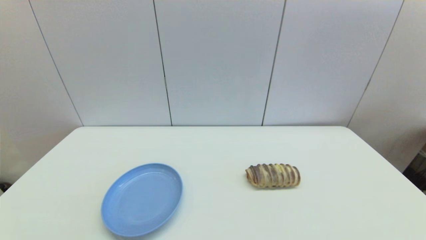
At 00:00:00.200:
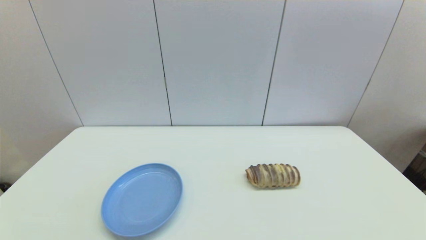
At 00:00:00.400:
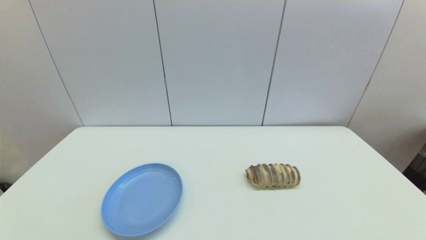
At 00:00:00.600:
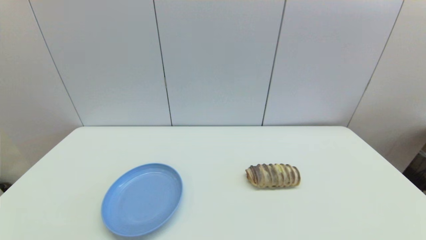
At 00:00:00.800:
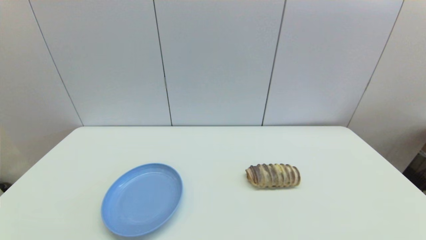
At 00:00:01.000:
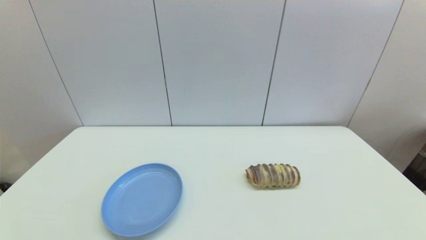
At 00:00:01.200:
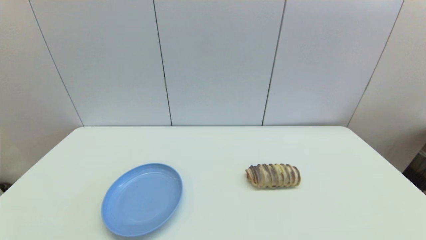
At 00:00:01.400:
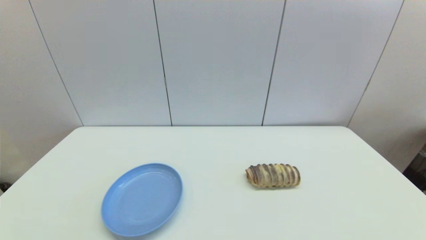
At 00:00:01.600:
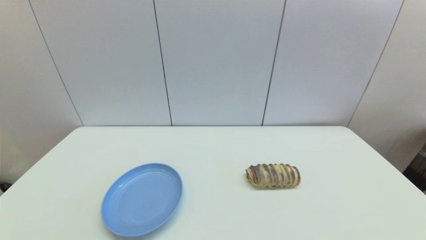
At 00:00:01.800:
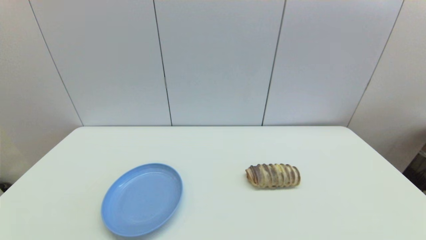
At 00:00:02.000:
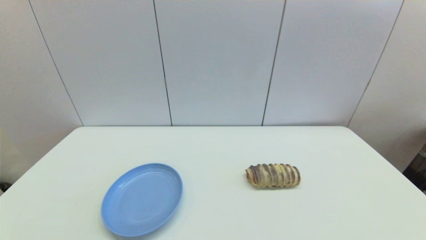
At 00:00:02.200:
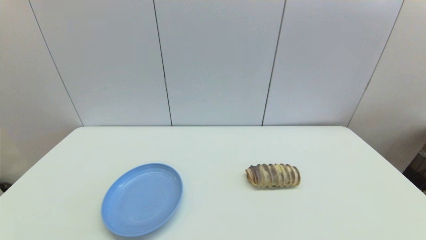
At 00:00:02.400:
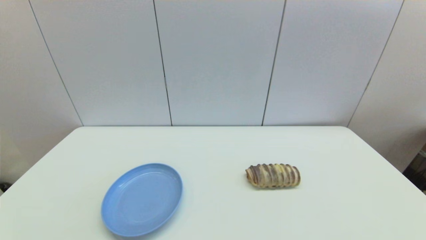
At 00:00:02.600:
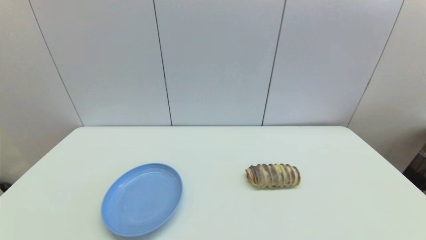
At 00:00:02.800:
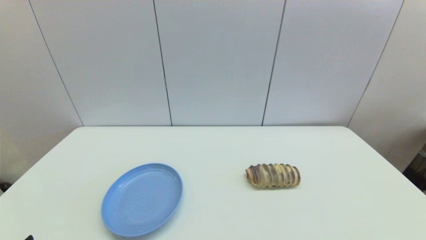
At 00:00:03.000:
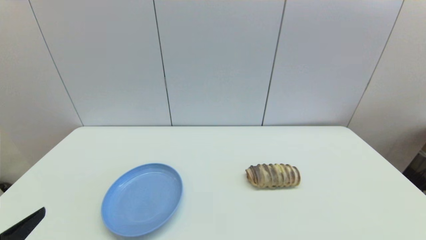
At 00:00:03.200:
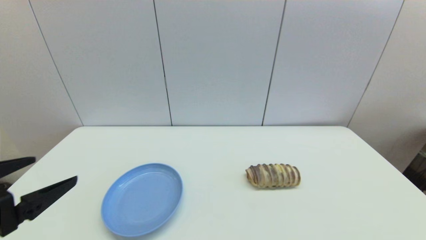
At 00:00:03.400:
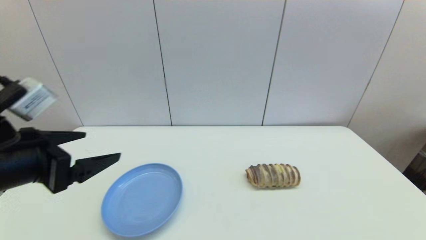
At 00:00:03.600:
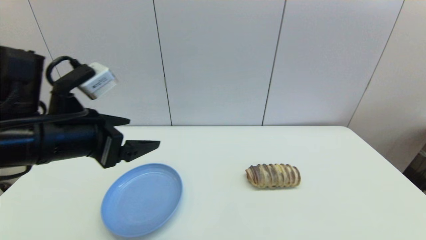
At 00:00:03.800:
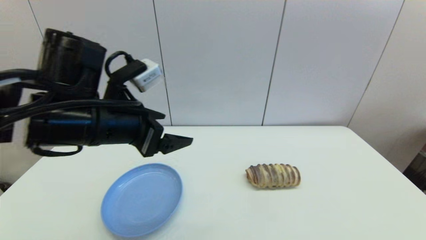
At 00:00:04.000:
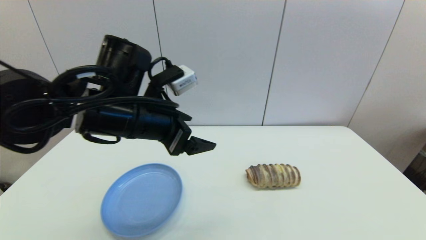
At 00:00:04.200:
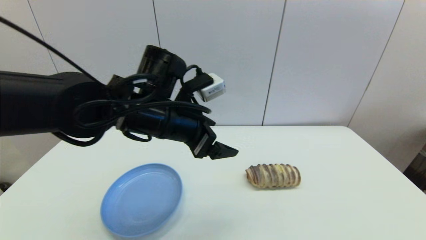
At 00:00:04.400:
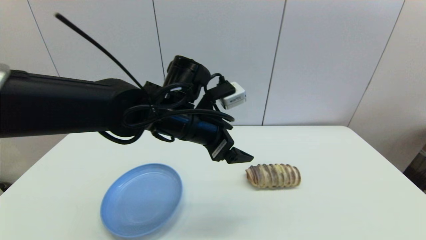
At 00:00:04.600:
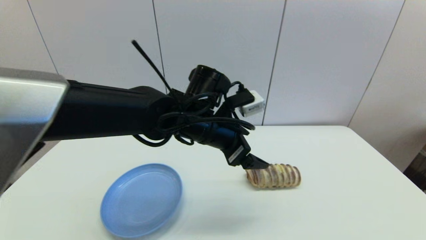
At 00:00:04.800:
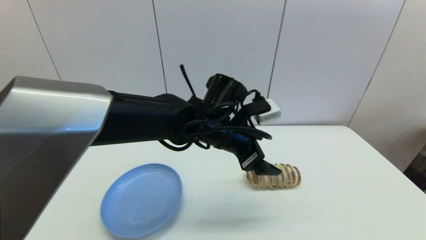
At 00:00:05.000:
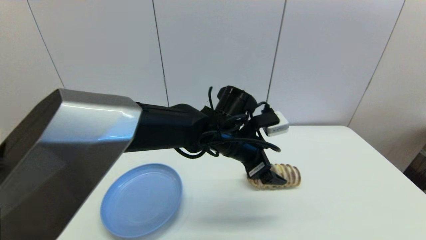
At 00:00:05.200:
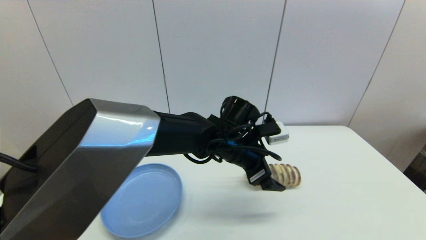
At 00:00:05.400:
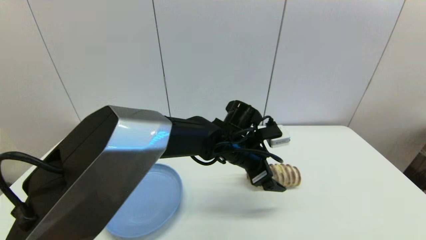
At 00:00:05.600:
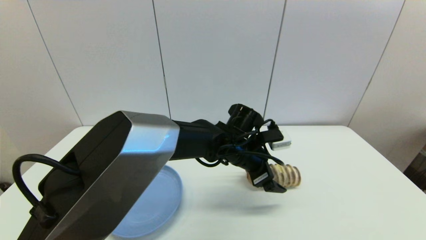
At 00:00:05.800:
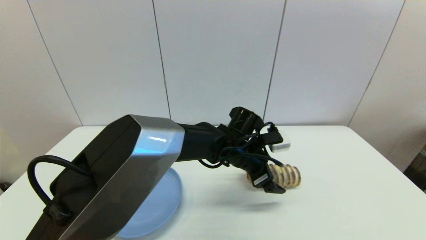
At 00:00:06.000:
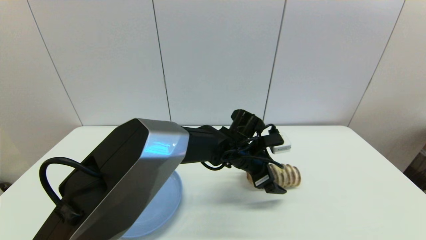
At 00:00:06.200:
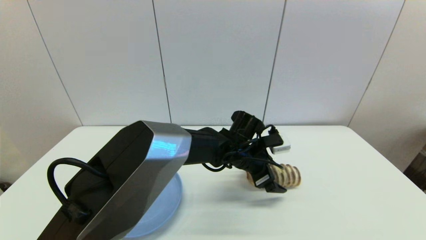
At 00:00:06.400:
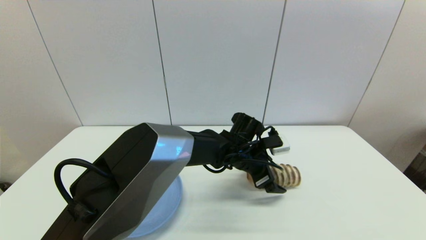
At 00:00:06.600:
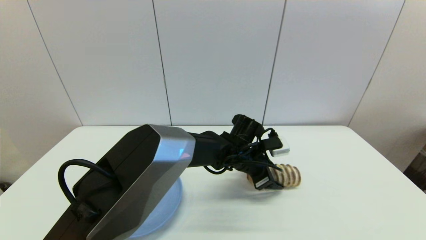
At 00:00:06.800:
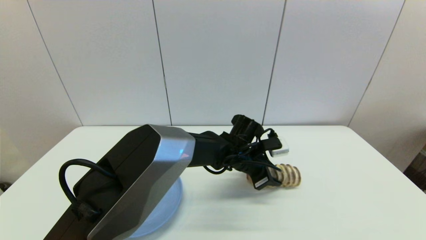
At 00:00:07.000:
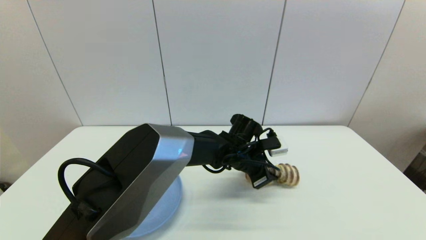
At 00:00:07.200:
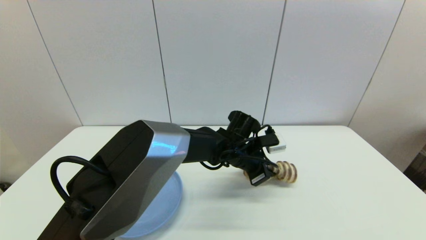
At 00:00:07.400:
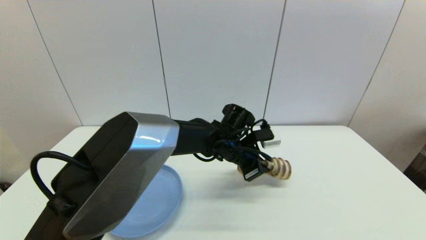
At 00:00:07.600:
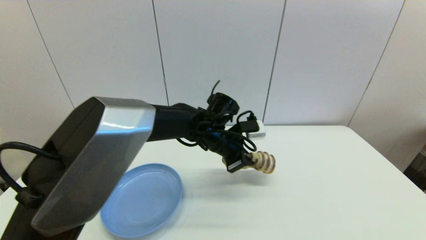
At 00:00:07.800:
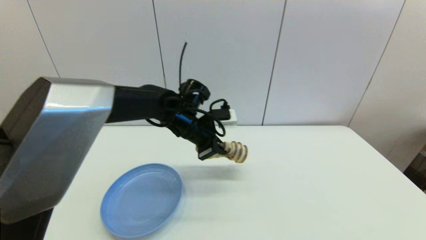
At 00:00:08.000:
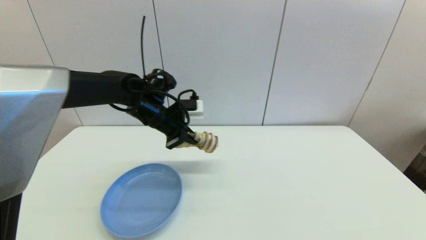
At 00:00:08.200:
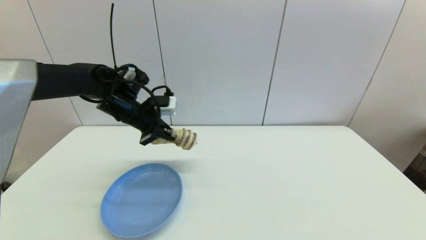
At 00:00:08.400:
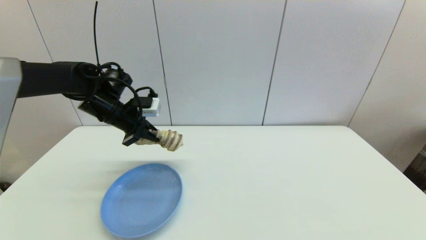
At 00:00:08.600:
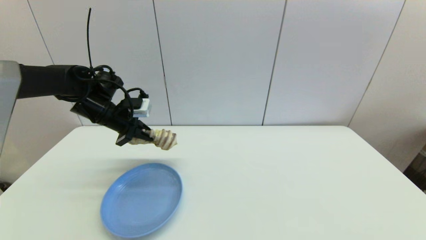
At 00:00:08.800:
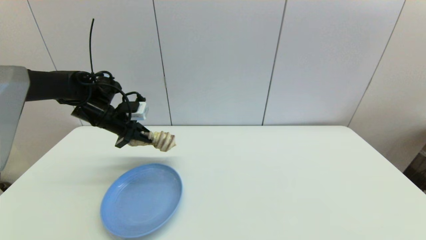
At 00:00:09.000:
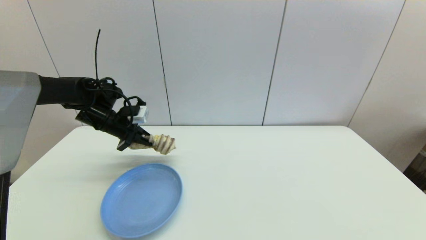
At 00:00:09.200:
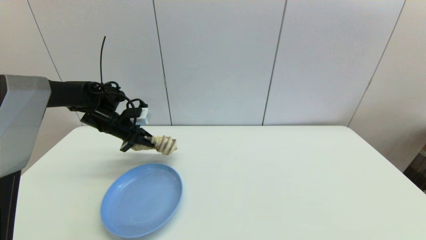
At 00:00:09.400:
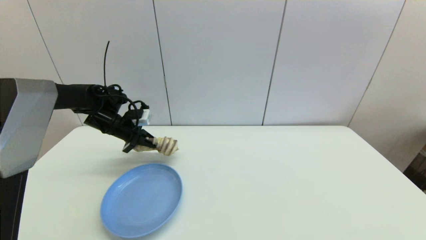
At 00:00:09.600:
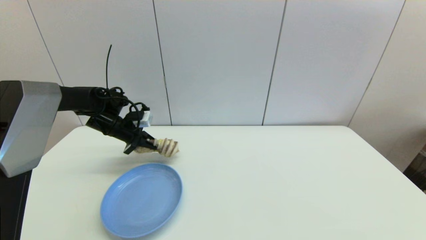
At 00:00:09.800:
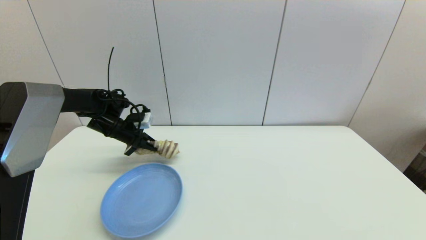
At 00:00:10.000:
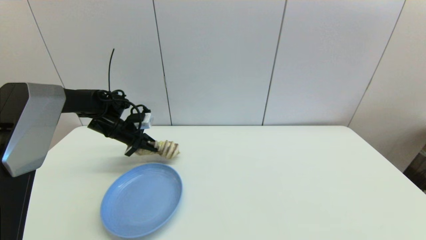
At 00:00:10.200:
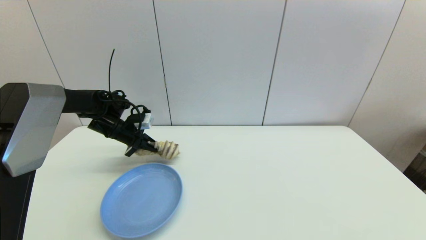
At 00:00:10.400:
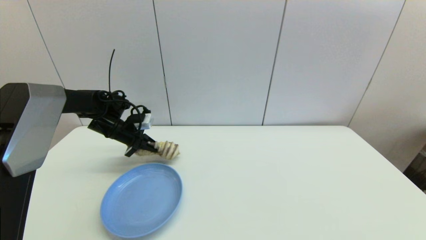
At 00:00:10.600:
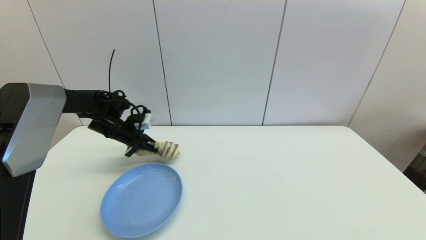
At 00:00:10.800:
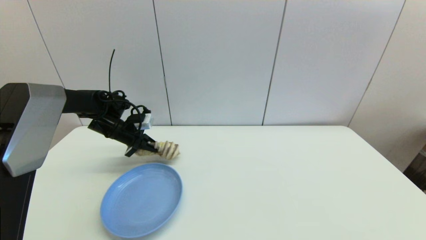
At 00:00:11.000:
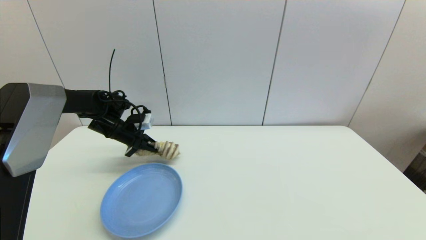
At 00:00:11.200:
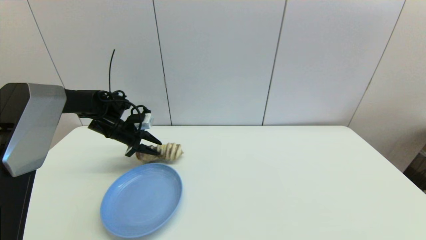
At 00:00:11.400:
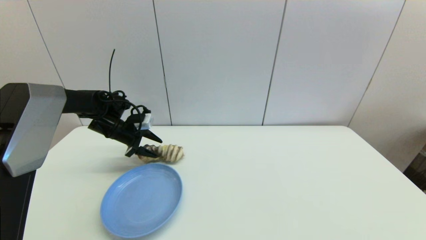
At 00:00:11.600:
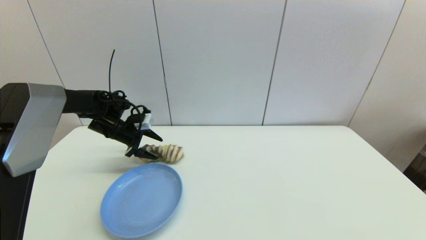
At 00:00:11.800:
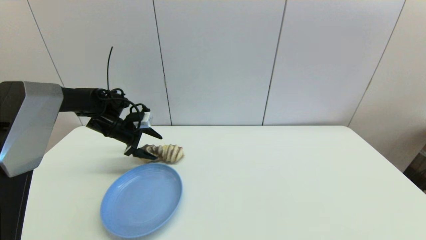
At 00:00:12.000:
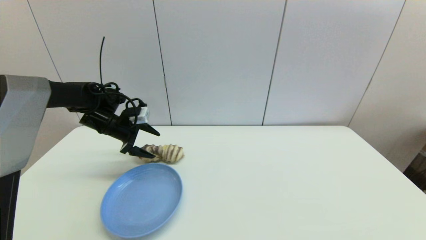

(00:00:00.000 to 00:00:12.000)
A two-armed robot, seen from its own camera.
Step, 00:00:02.800 - 00:00:07.000: Grasp the long bread with left gripper.
Step, 00:00:07.200 - 00:00:11.600: Place the long bread on the table with left gripper.
00:00:00.000 - 00:00:01.600: Both grippers stay about where they are.
00:00:01.600 - 00:00:03.000: The left gripper shifts approximately 15 cm upward and forward.
00:00:03.000 - 00:00:04.400: The left gripper goes roughly 35 cm to the right and forward.
00:00:04.400 - 00:00:06.000: The left gripper travels downward, to the right and forward by approximately 15 cm.
00:00:06.000 - 00:00:07.600: The left gripper moves to the left, roughly 5 cm, and closes.
00:00:07.600 - 00:00:09.000: The left gripper travels to the left by roughly 30 cm.
00:00:09.000 - 00:00:10.400: The grippers stay close to where they were, moving slightly.
00:00:10.400 - 00:00:12.000: The left gripper opens its fingers.

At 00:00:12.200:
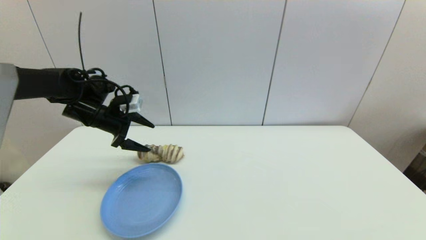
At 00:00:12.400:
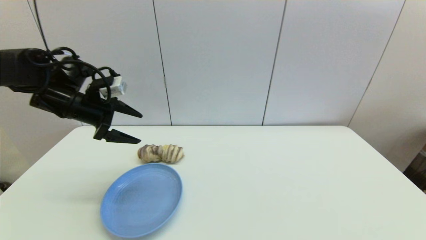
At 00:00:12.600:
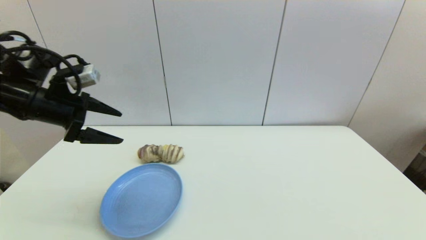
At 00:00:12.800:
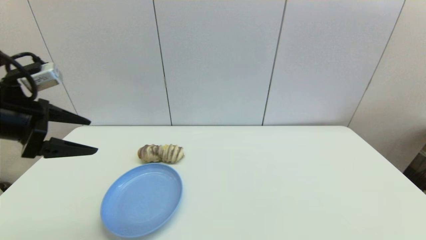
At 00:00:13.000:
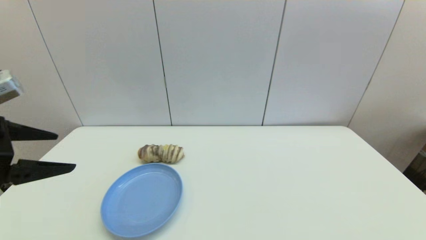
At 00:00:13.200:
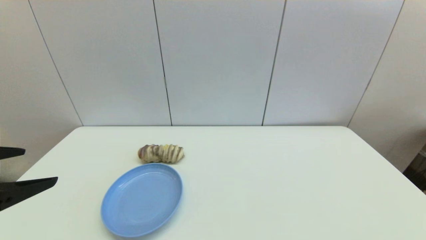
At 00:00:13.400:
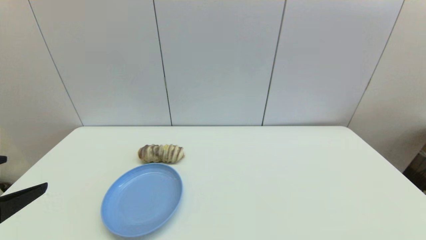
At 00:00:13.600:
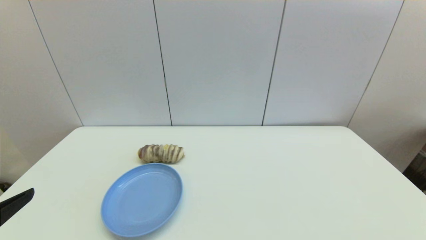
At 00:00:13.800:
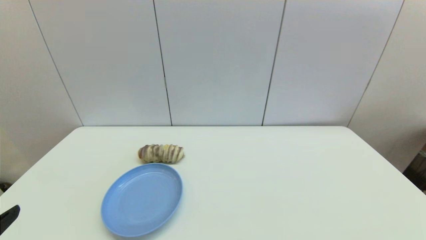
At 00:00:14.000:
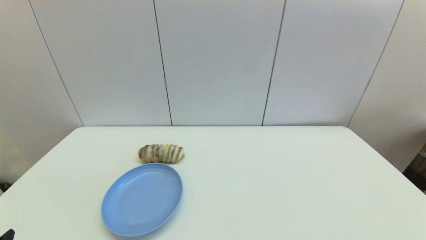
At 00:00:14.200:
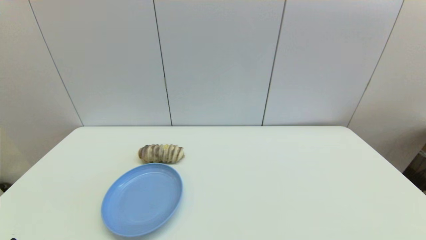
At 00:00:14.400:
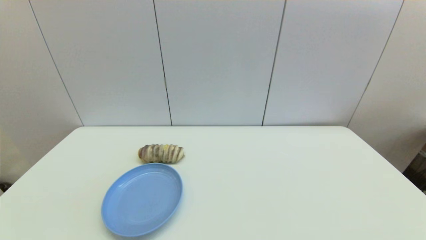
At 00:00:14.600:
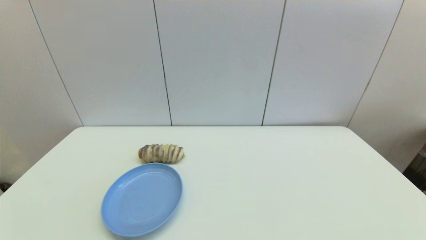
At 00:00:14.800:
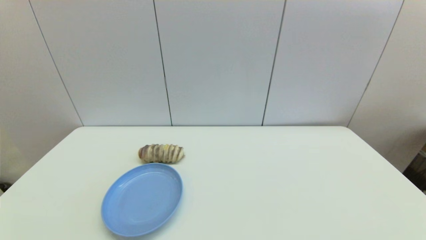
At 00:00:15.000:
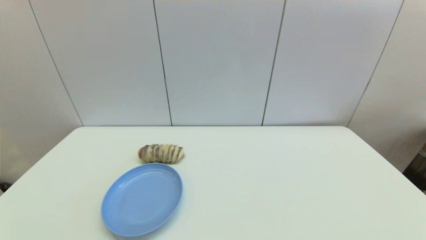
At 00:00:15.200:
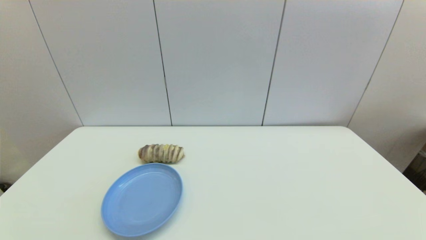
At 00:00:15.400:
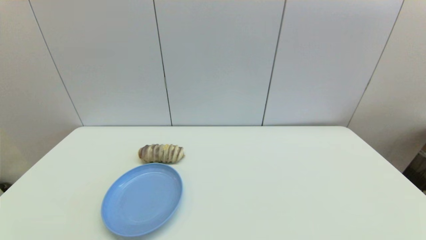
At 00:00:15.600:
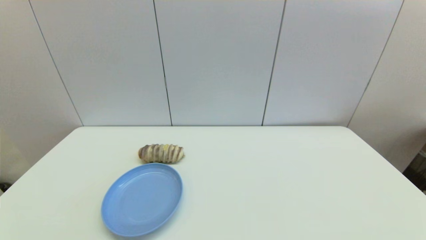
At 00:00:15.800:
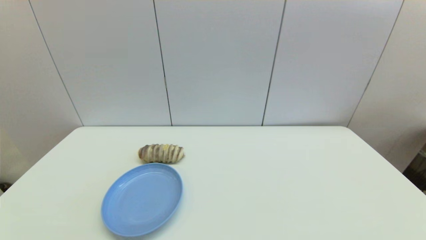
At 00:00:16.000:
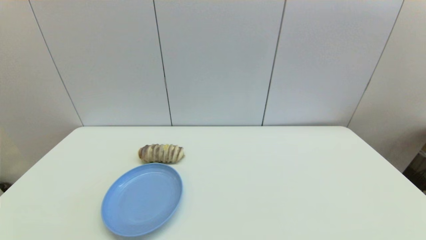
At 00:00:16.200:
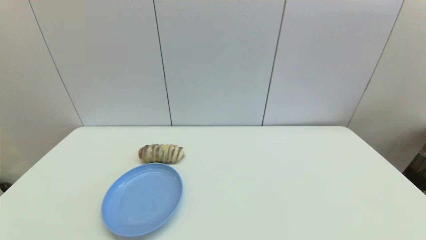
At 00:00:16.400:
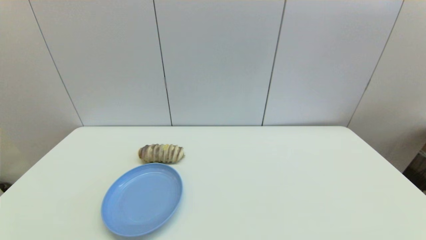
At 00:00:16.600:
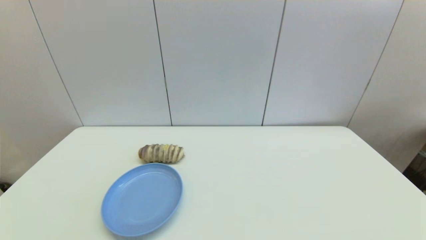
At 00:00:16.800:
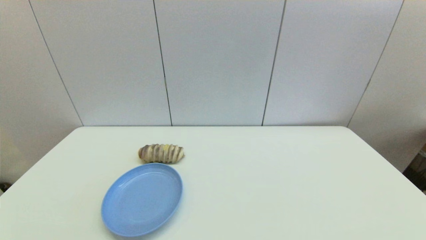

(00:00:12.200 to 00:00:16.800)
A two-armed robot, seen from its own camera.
00:00:12.200 - 00:00:13.800: The left gripper moves backward, approximately 40 cm.
